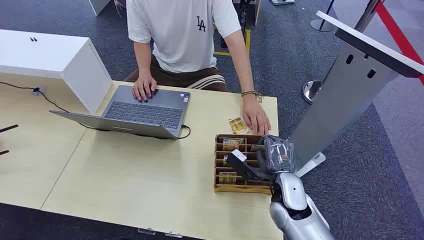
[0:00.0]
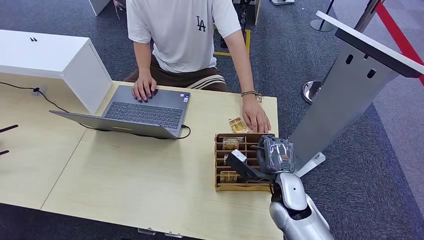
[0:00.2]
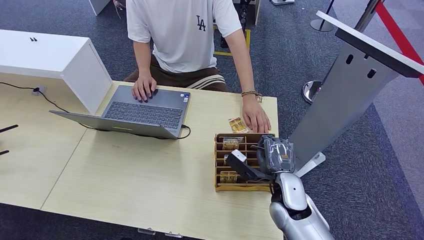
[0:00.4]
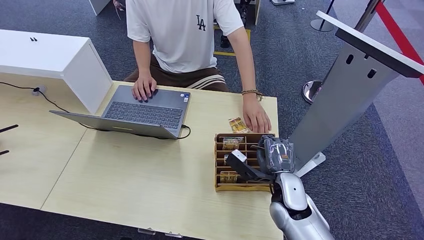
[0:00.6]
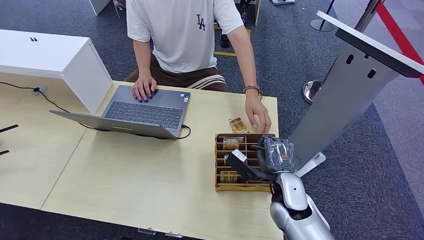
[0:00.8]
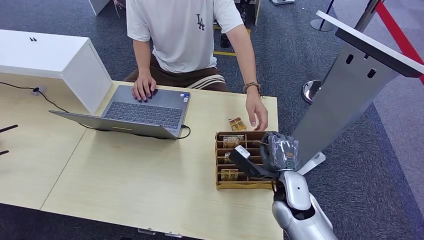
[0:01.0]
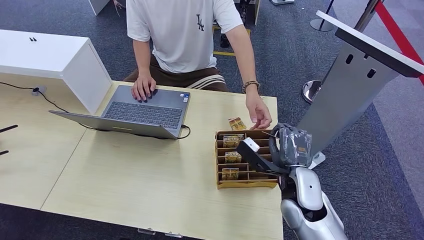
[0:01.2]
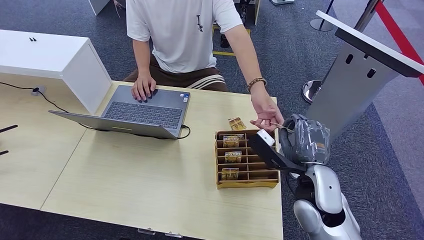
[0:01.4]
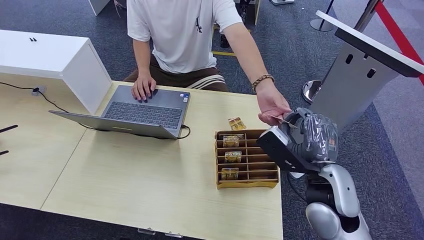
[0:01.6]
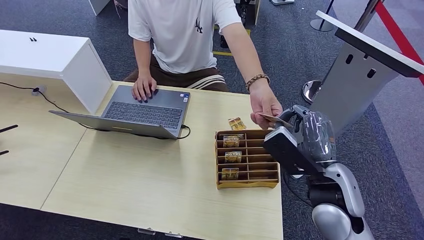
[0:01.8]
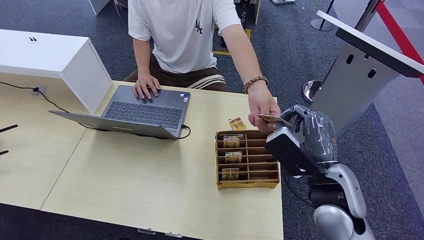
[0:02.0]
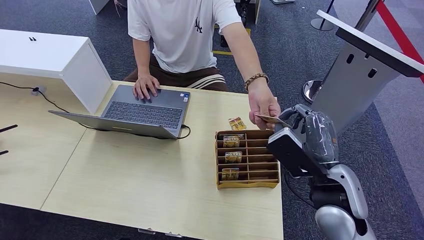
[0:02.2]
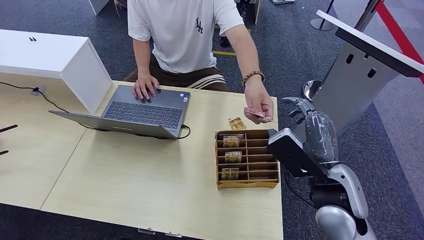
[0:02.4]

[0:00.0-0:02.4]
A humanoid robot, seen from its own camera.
Step, 0:00.0 to 0:01.2: Pick up the room card from the card holder.
Step, 0:01.6 to 0:02.4: Hand the room card to the target.
0:01.2 to 0:02.4: The right hand is displaced upward by roughly 10 cm.
